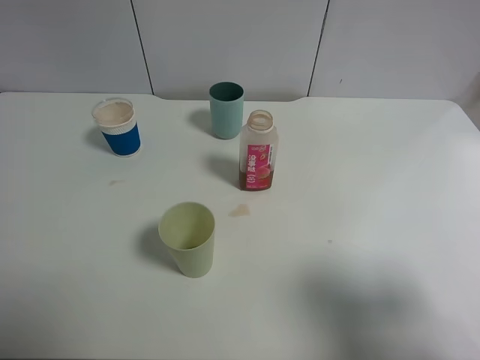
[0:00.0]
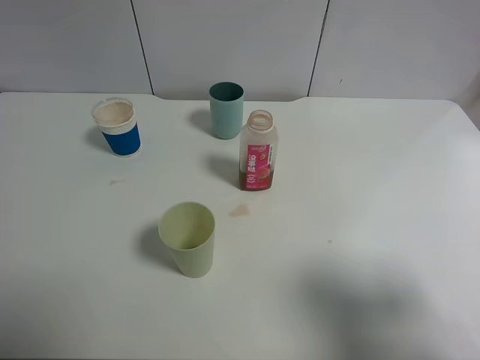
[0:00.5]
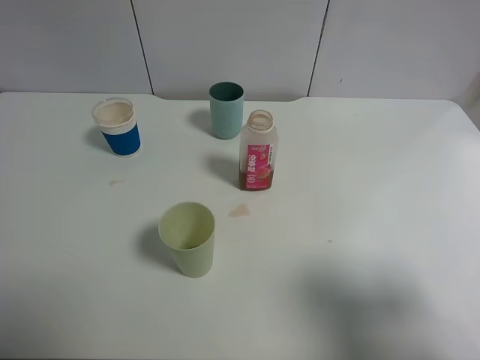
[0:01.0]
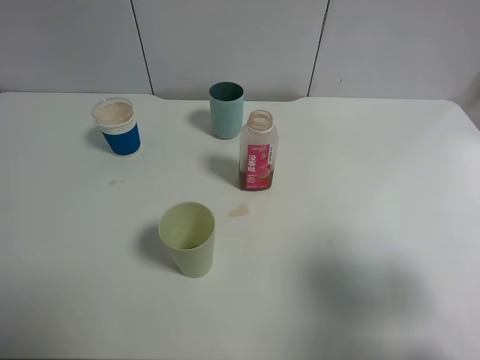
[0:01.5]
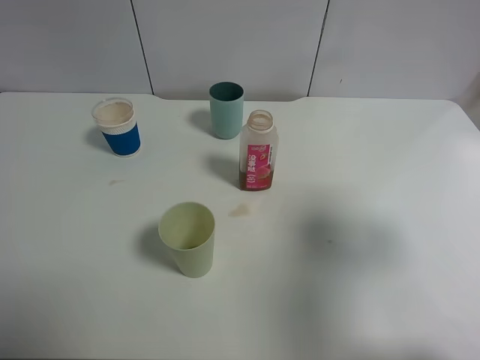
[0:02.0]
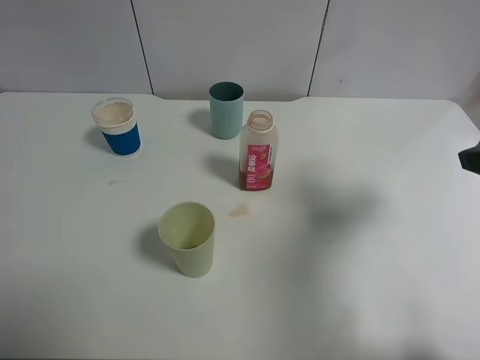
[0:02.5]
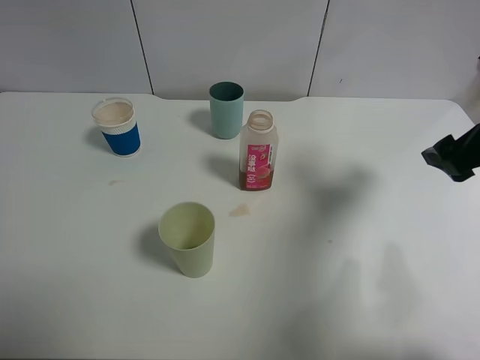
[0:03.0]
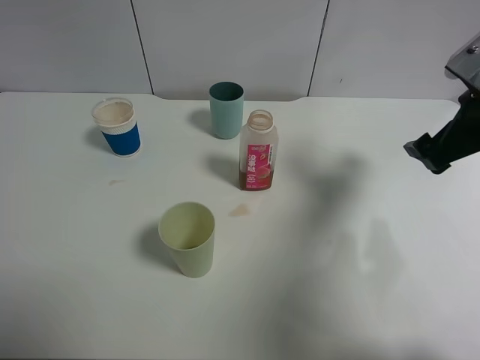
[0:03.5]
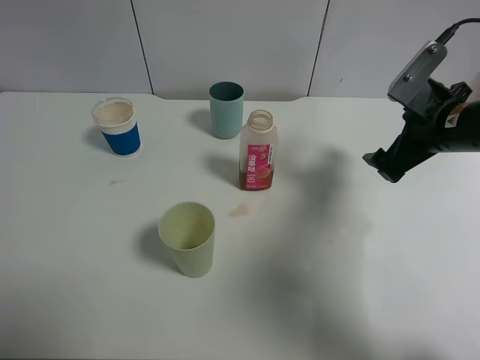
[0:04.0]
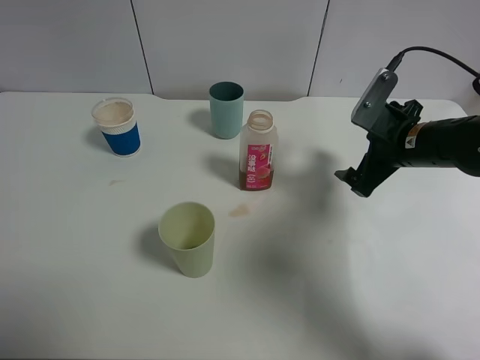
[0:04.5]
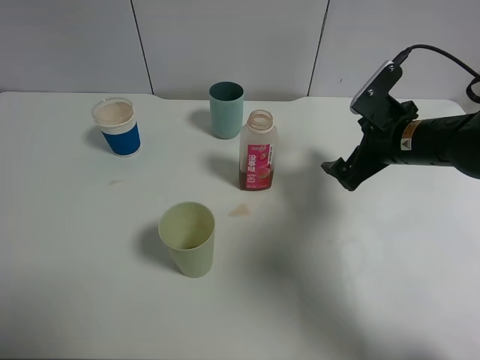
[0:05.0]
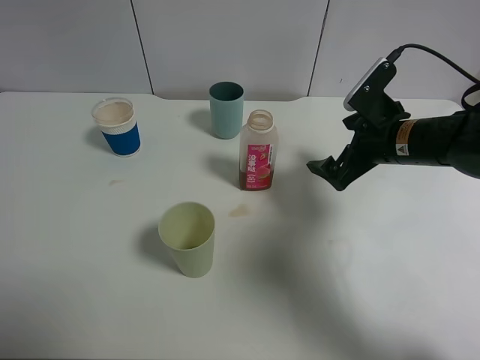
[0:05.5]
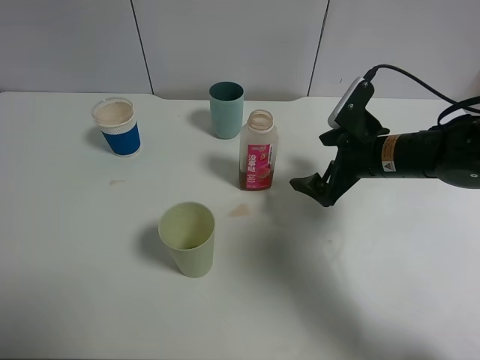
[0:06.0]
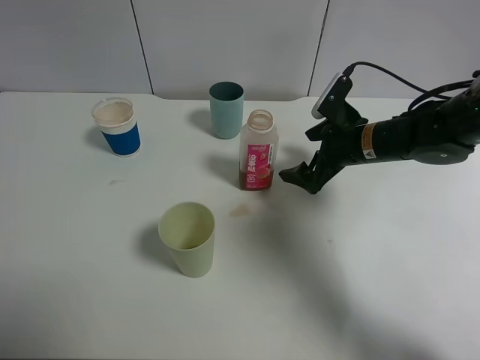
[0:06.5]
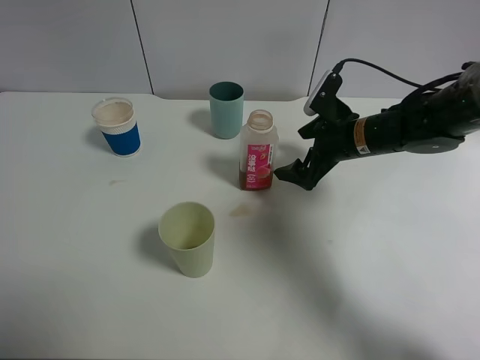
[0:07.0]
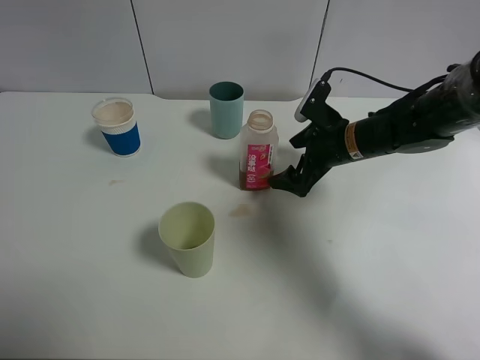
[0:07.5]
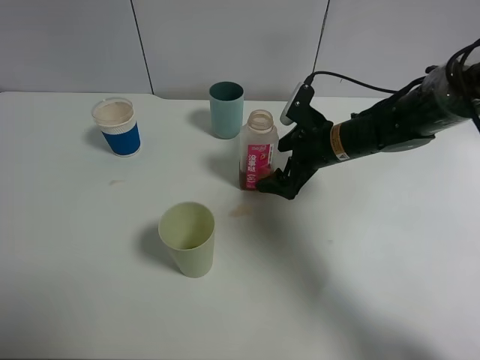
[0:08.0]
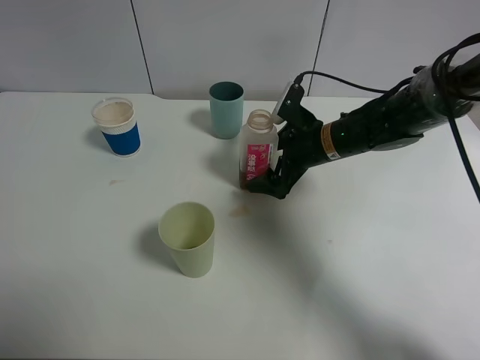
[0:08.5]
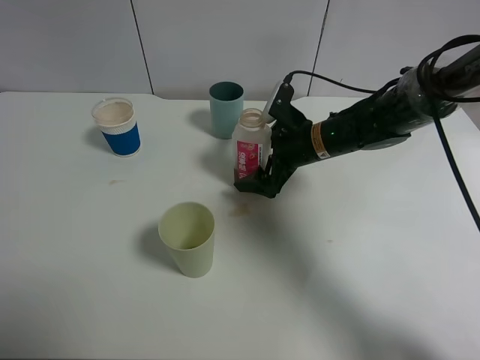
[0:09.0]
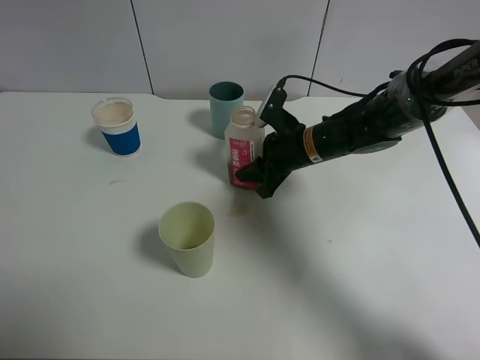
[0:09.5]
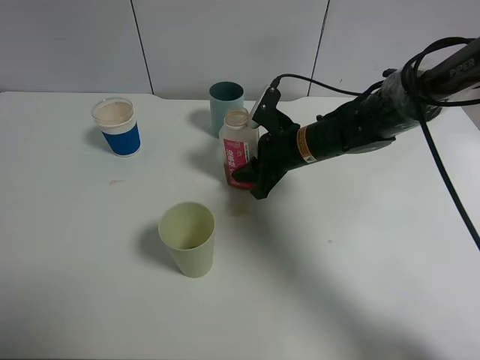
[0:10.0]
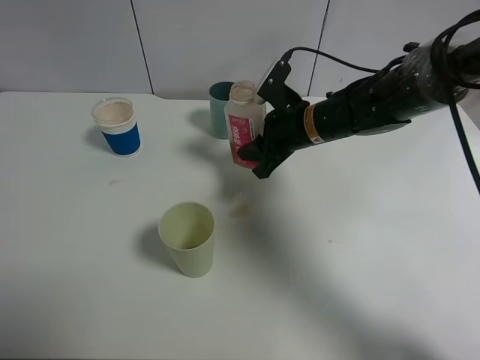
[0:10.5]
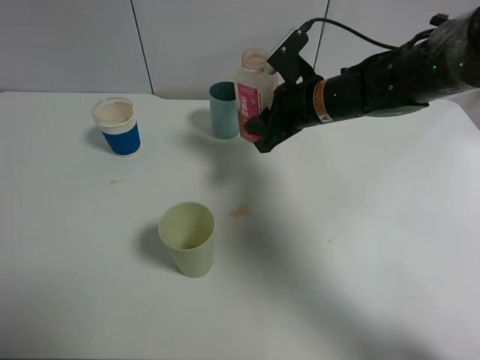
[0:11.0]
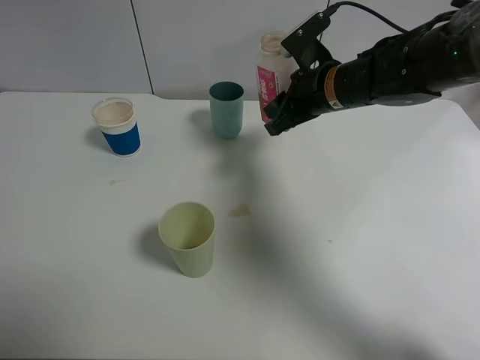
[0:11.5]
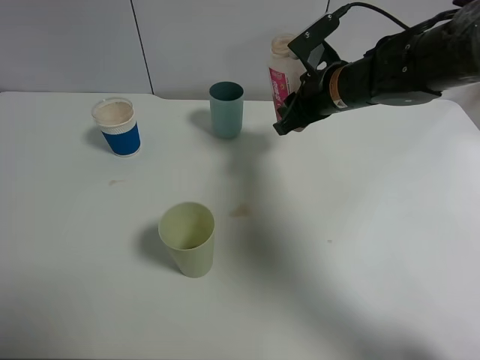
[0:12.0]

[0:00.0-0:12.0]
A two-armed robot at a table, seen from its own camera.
Task of the whole recording: use a clamp to hold the bottle of the drink, pour the beverage into a random cup, then clamp the cup containing the drink and pour the drink into another random cup.
Step, 0:00.0 to 0:10.5: Pick up the drink bottle with right gripper.
0:00.0 to 0:02.0: The right gripper heads forward, covering approximately 10 cm.
0:02.0 to 0:04.0: The right gripper goes approximately 20 cm forward and downward.
0:04.0 to 0:06.0: The right gripper moves to the left and downward, about 10 cm.
0:06.0 to 0:08.0: The right gripper is displaced forward by roughly 5 cm.
0:08.0 to 0:10.0: The right gripper moves about 5 cm, and closes up.
0:10.0 to 0:12.0: The right gripper goes about 10 cm upward.

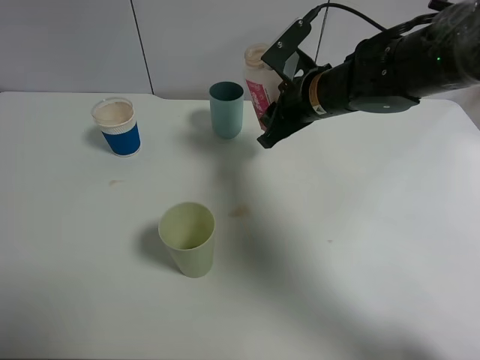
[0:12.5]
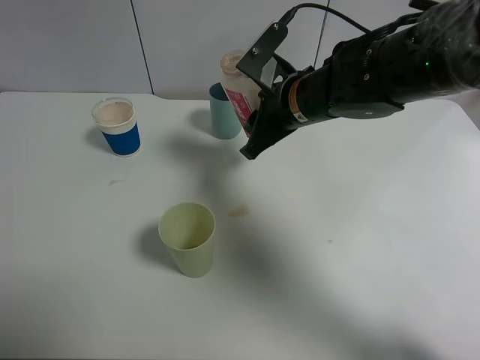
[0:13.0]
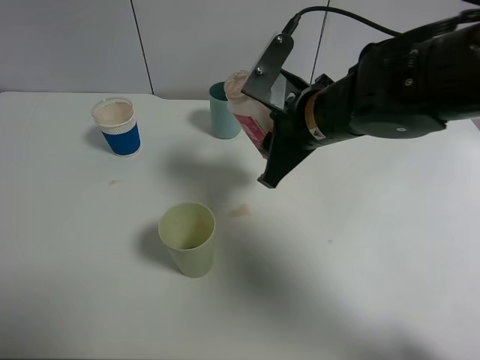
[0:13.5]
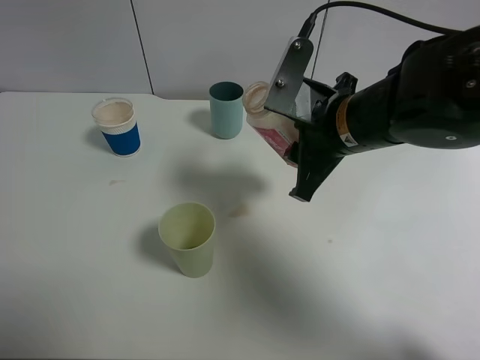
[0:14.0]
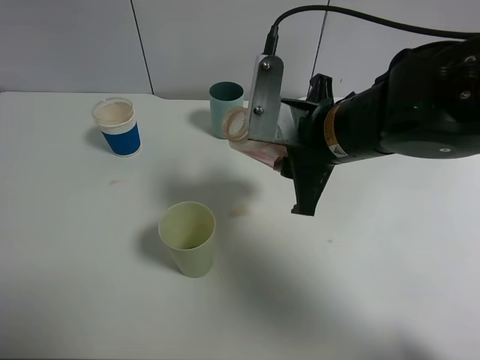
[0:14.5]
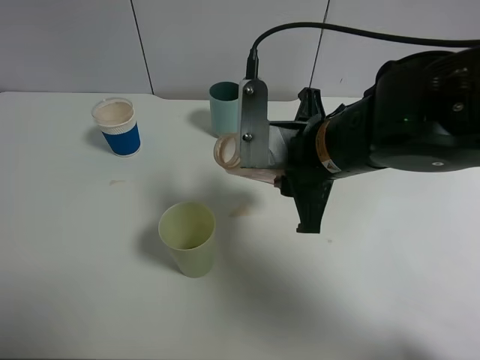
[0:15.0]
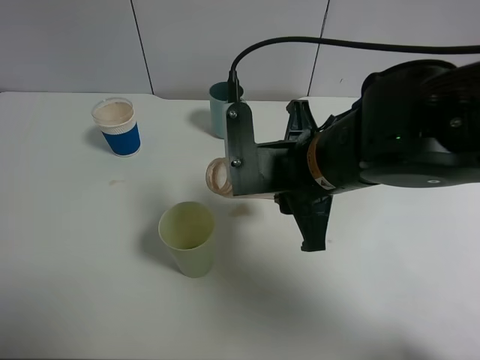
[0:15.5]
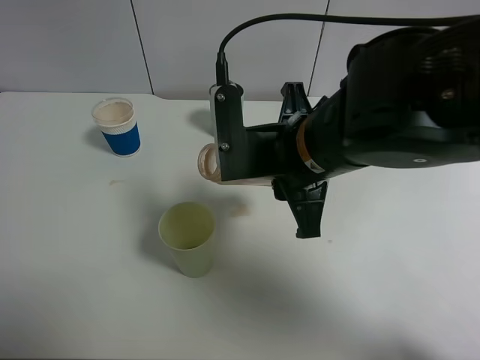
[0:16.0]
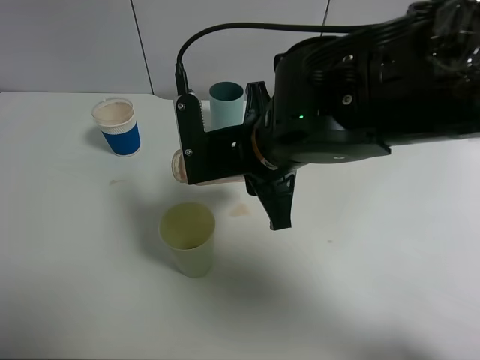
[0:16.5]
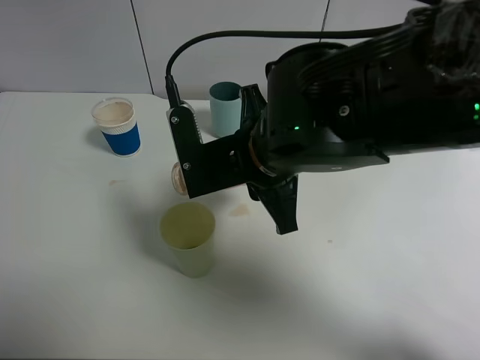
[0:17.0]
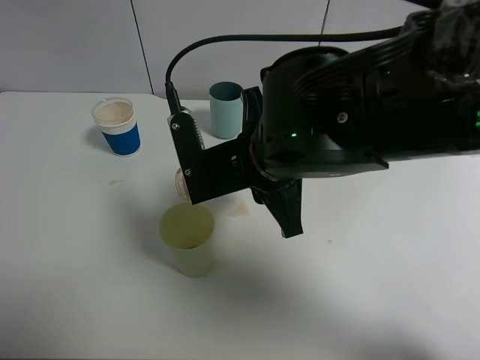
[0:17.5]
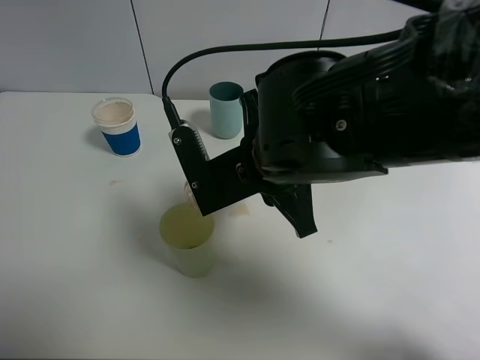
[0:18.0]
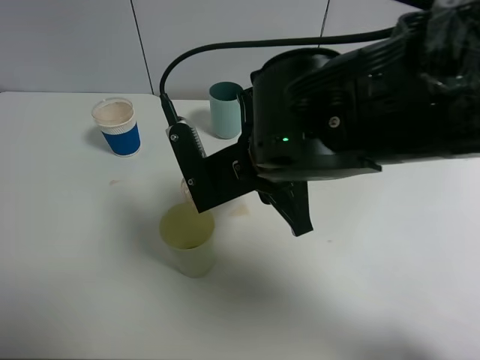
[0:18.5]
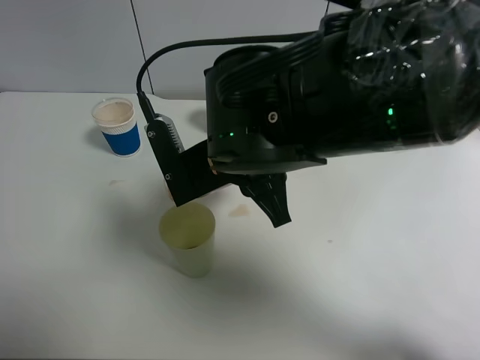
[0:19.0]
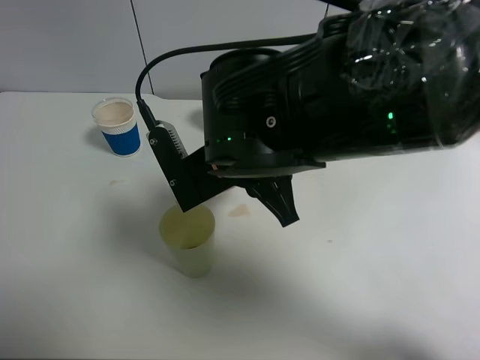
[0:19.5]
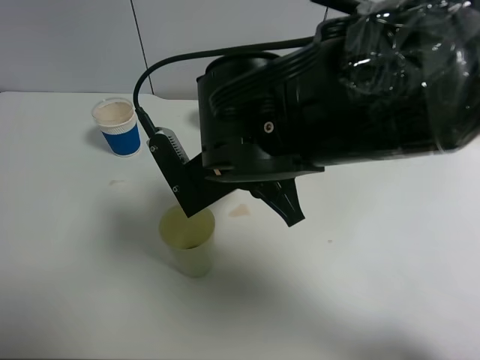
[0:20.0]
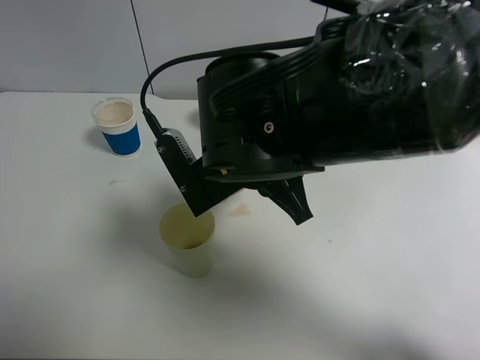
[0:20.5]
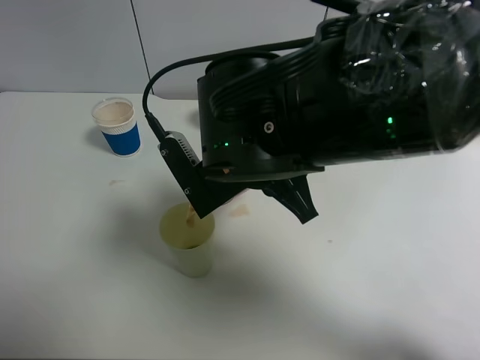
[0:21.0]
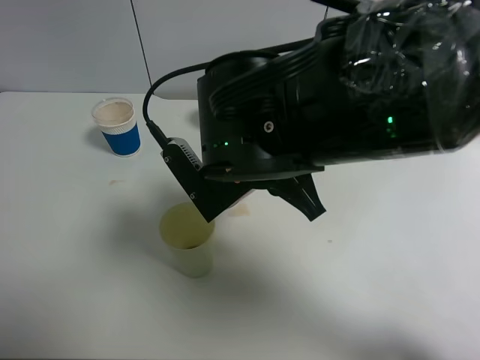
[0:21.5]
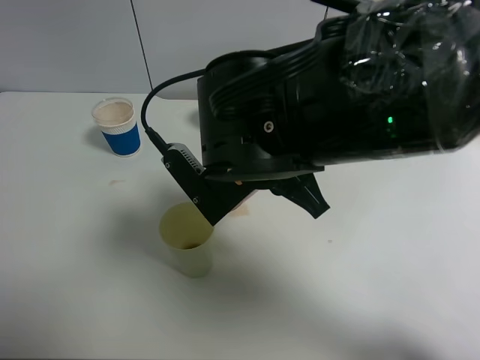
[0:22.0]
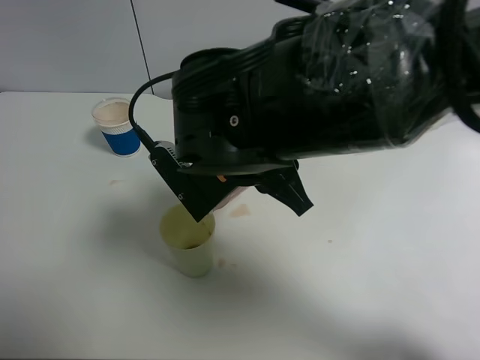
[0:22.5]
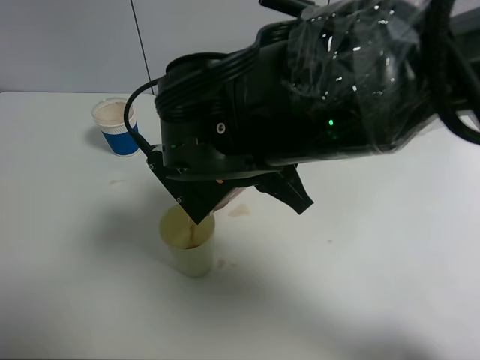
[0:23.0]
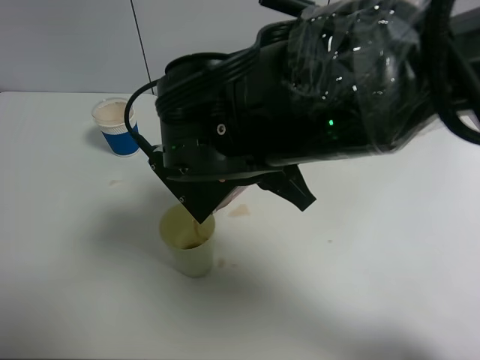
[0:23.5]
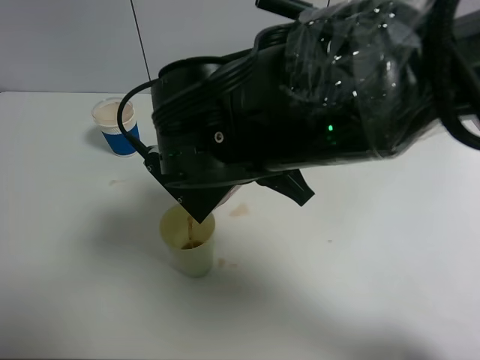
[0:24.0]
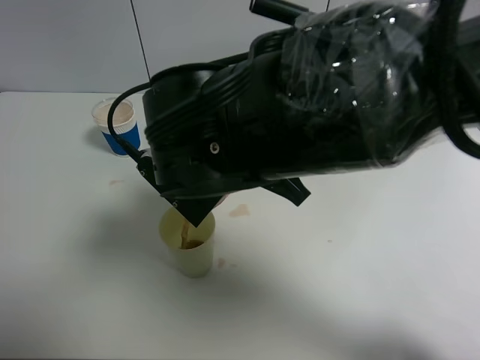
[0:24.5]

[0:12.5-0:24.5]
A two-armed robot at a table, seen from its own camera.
Task of the whole recording: use a clamp to hold the bottle of the drink, pour the beverage into a random cup, then clamp the cup containing the drink and pour the drink into another random cup.
0:12.5 to 0:14.5: The right gripper is displaced backward by about 10 cm.
0:14.5 to 0:16.5: The right gripper moves to the left, approximately 5 cm.
0:16.5 to 0:18.5: The grippers move only a little.
0:18.5 to 0:20.5: The grippers make only small movements.
0:20.5 to 0:24.5: The grippers make only small movements.

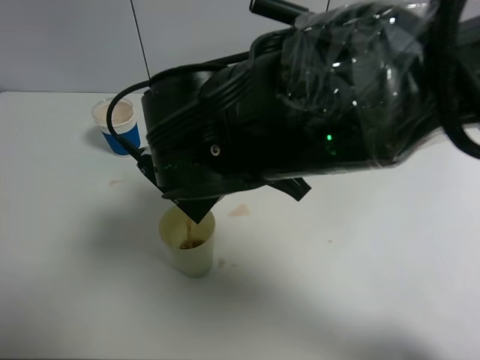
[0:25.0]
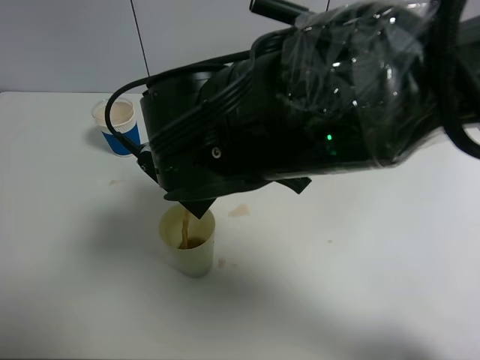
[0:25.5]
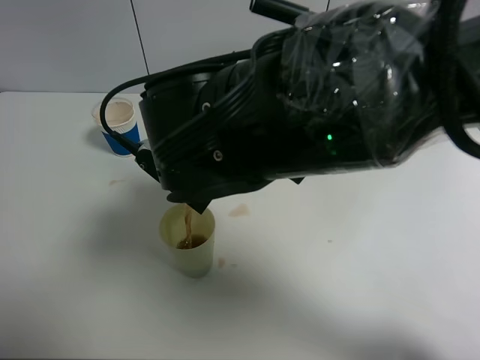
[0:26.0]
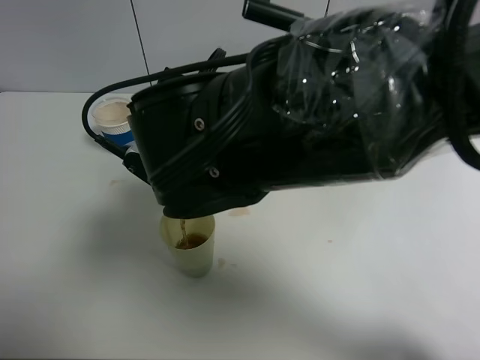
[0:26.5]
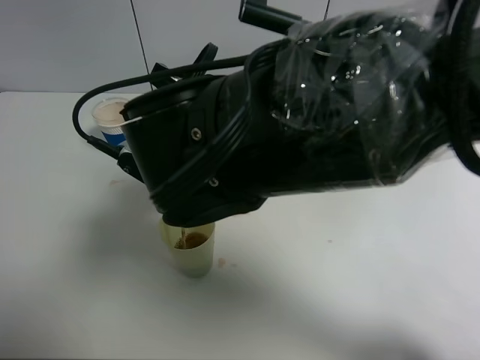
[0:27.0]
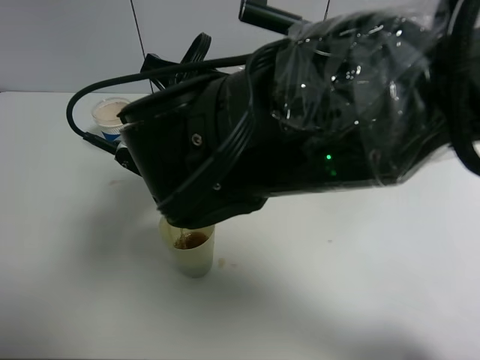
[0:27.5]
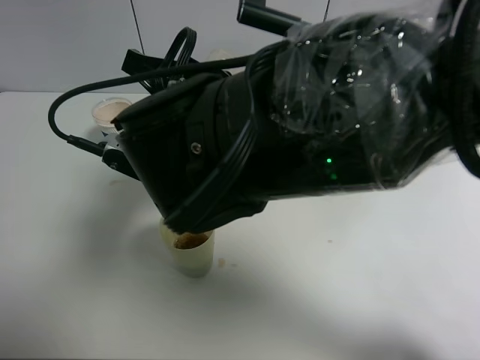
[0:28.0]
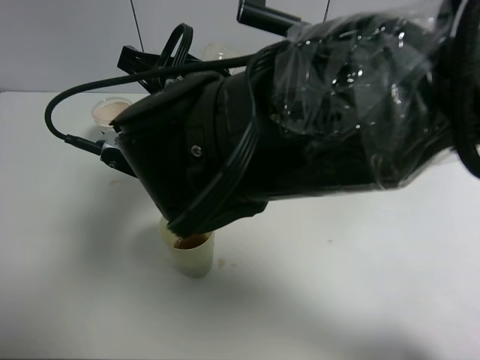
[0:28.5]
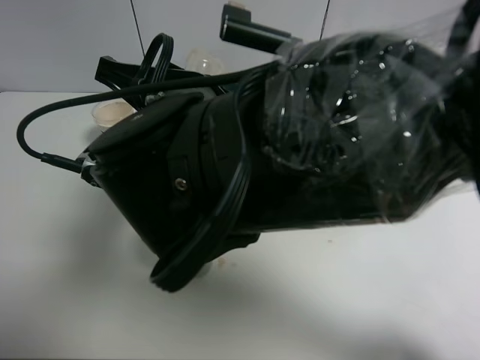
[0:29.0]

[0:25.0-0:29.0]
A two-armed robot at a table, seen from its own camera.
Task of the whole recording: use a clamp to hold the bottle of the drink, pour the beverage into a random cup, then clamp the cup containing the drink and pour the drink into another random cup.
0:25.0 to 0:27.0: There are only small adjustments of the grippers.
